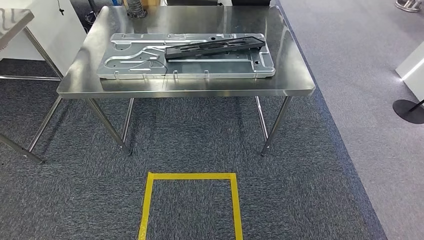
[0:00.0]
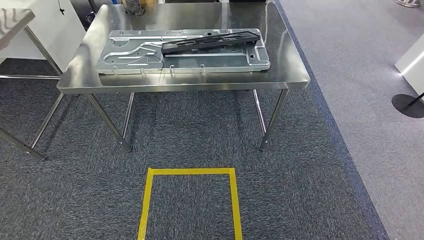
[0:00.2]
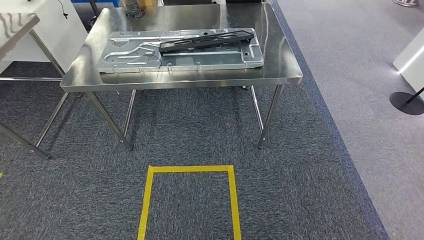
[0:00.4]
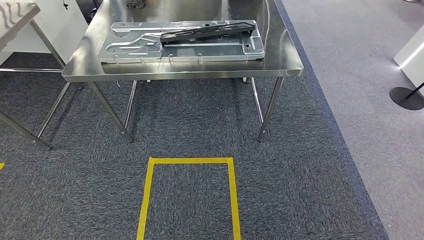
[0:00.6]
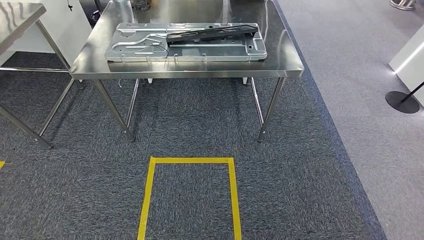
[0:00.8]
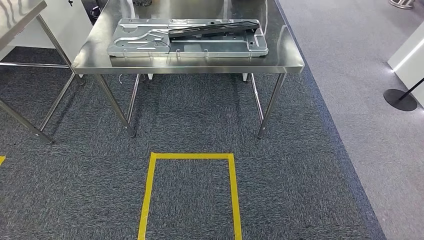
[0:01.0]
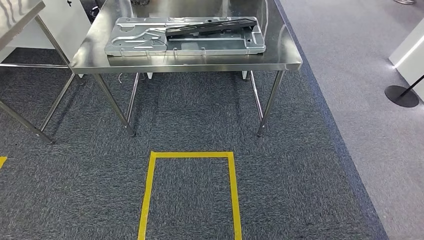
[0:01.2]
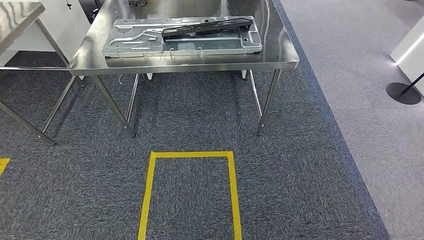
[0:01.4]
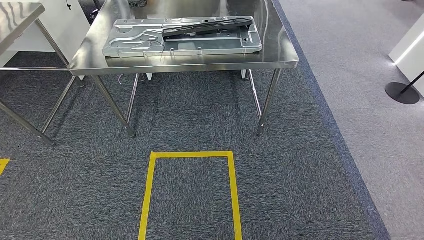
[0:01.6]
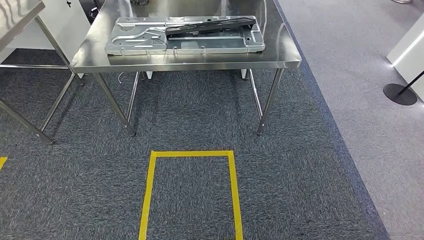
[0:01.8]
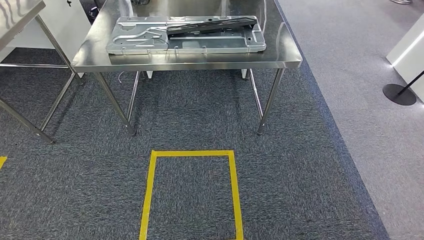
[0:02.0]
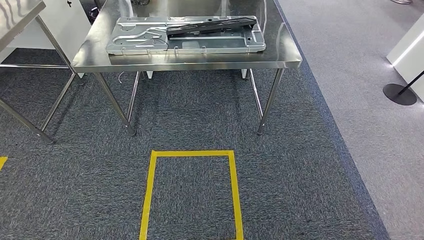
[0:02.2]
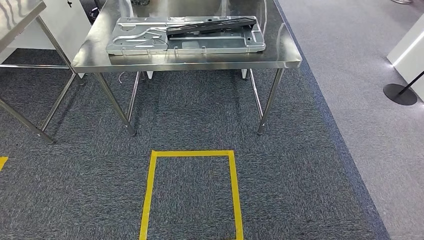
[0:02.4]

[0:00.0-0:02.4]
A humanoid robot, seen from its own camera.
Step, 0:00.0 to 0:02.4: Move to the initial position of the shelf.
0:01.2 to 0:02.4: The hands make only small movements.
